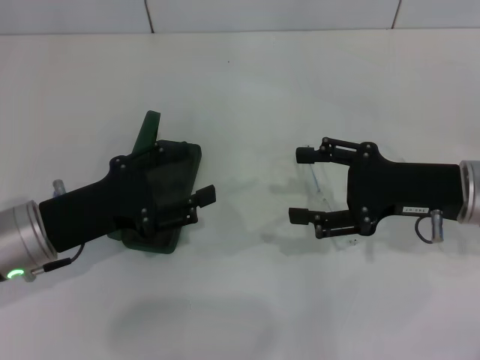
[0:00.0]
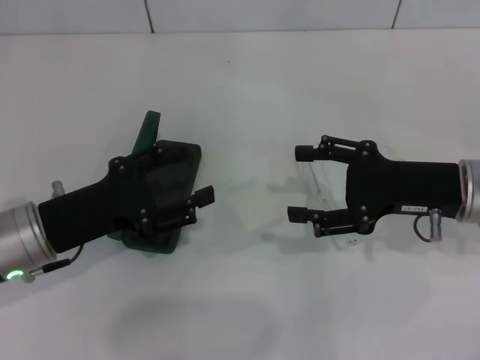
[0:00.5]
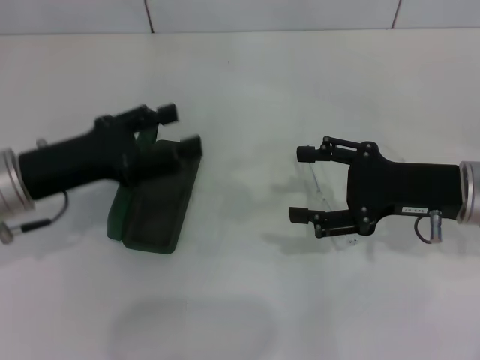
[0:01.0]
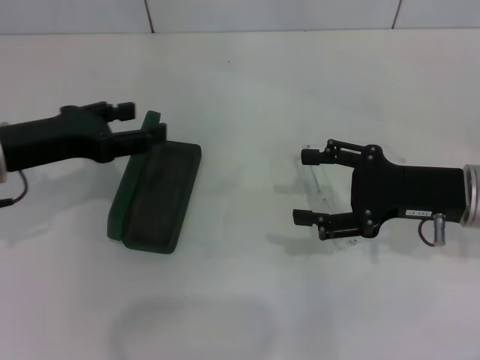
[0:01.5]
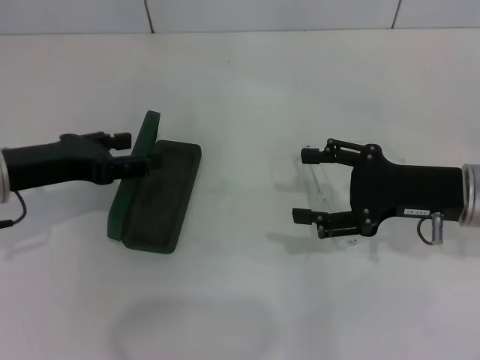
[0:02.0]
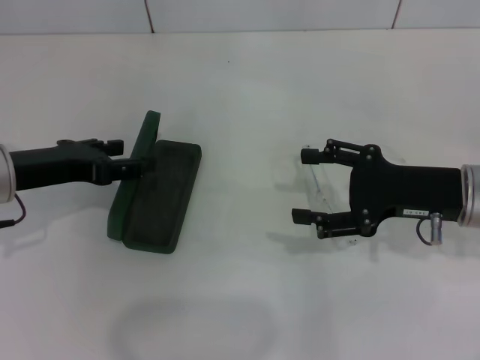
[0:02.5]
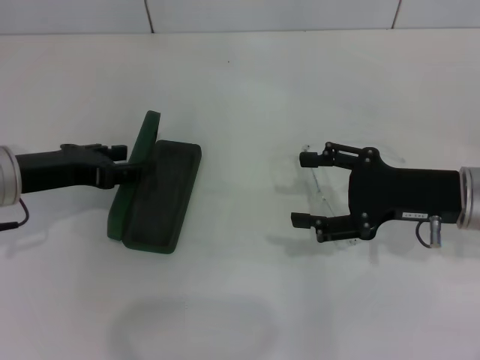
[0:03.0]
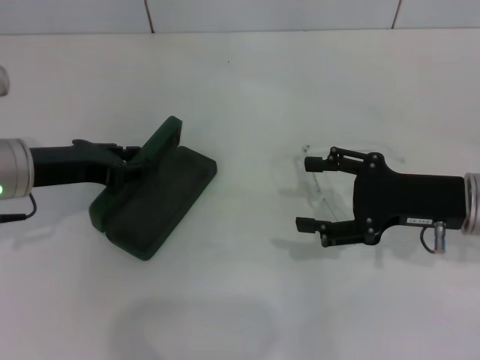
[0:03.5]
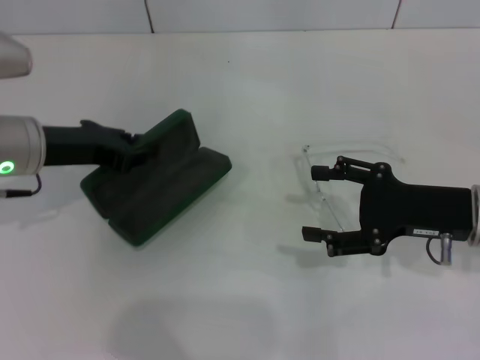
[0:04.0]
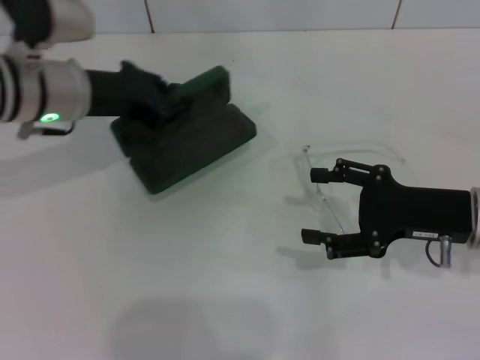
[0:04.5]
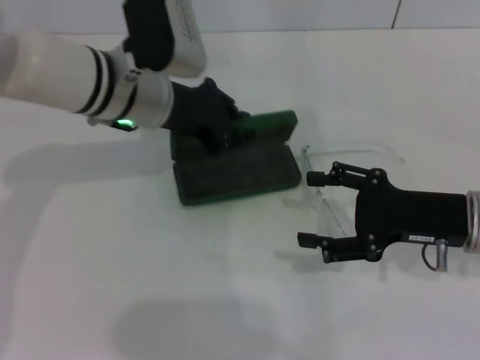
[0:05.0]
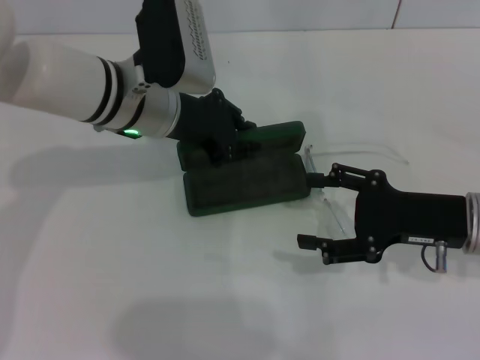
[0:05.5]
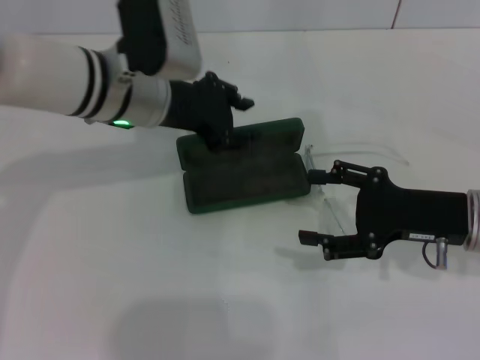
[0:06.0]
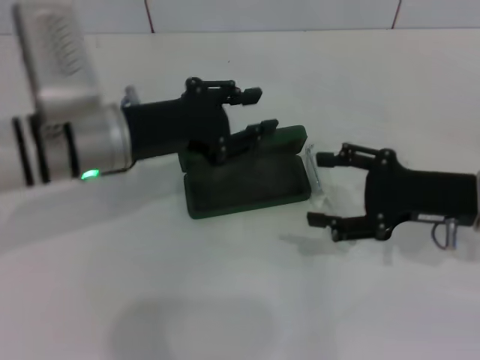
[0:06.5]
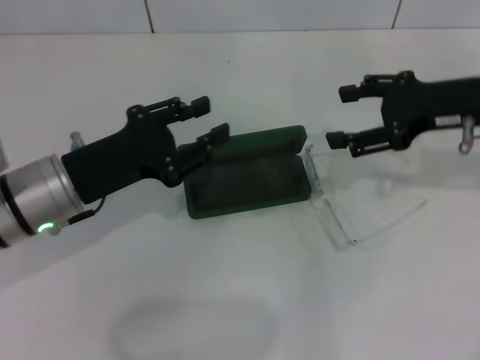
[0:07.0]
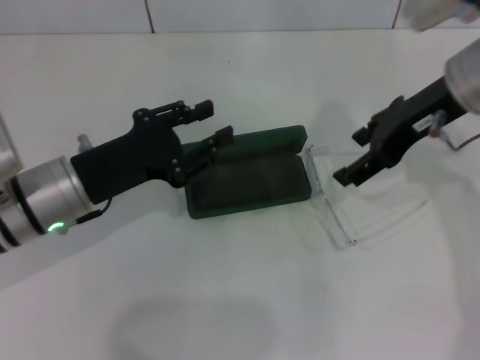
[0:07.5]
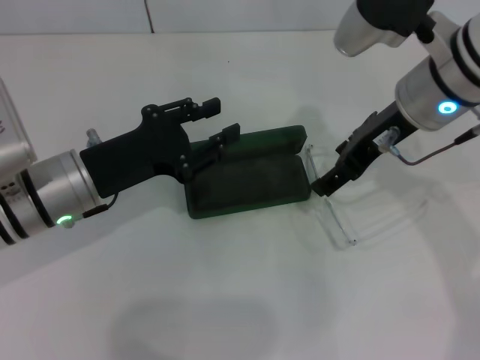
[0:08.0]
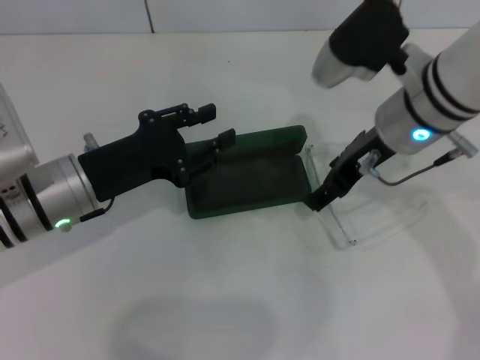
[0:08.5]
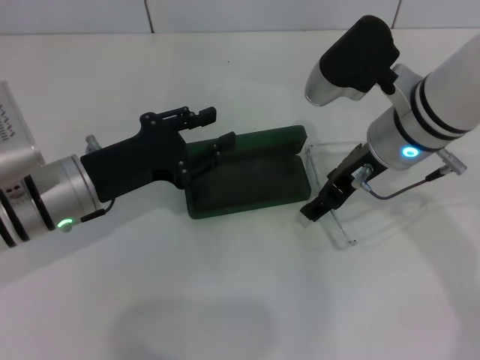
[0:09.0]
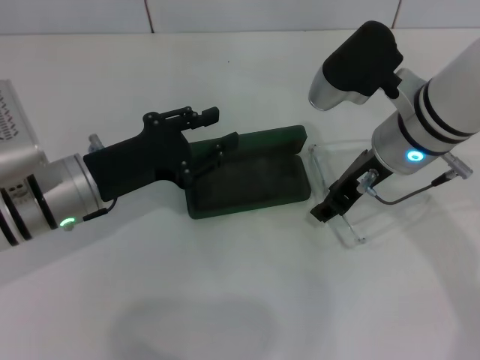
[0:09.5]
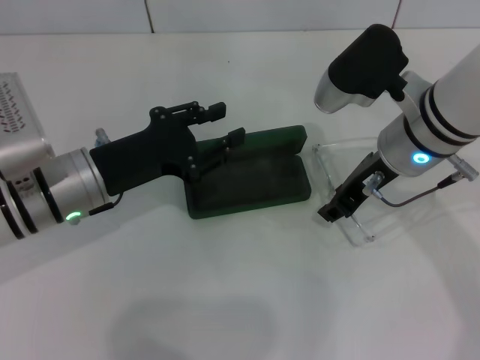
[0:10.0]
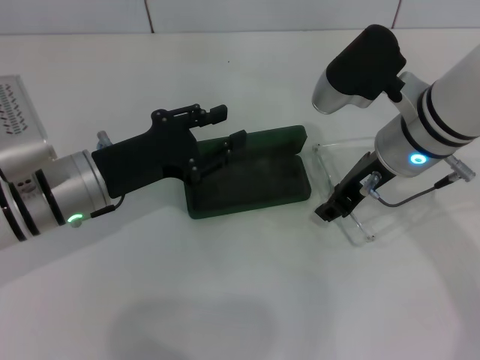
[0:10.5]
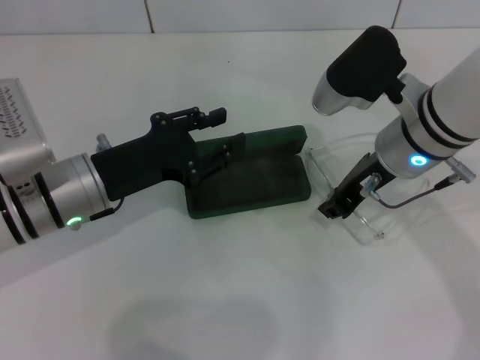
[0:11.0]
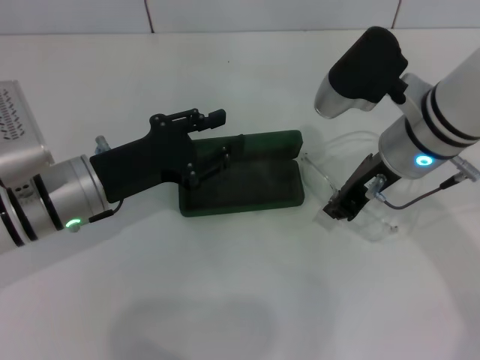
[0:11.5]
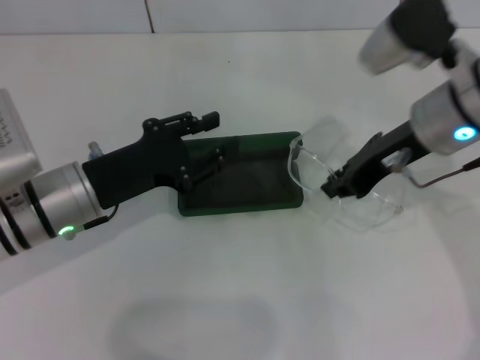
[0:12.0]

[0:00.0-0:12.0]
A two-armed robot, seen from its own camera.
Step, 0:00.0 to 0:03.5: Grab the glasses case with your left hand.
Step, 0:04.0 to 0:05.5: Place the glasses case in the center of the table with your left hand.
0:00.0 to 0:02.0: The left gripper heads upward, covering about 5 cm.
0:02.0 to 0:04.0: The left gripper closes its fingers.
0:04.0 to 0:06.0: The left gripper shifts some 10 cm to the right, and opens.
0:06.0 to 0:08.0: The left gripper heads backward, to the left and downward, covering about 15 cm, while the right gripper heads upward, to the left and forward, covering about 15 cm.
0:08.0 to 0:10.0: The right gripper moves roughly 5 cm, and closes up.
0:10.0 to 0:12.0: The right gripper closes.

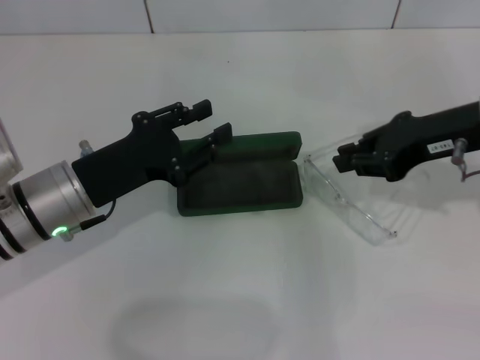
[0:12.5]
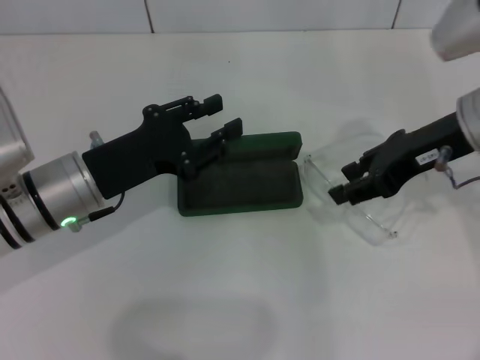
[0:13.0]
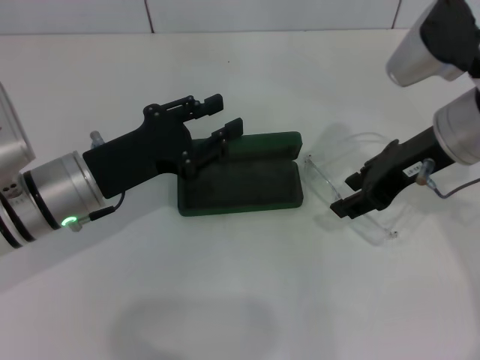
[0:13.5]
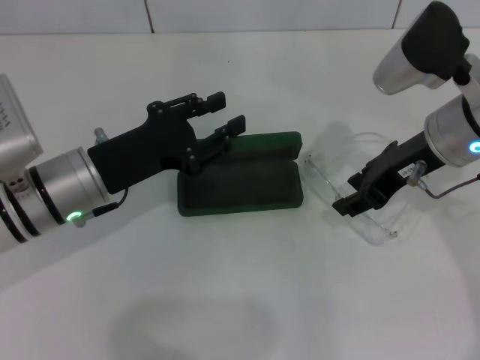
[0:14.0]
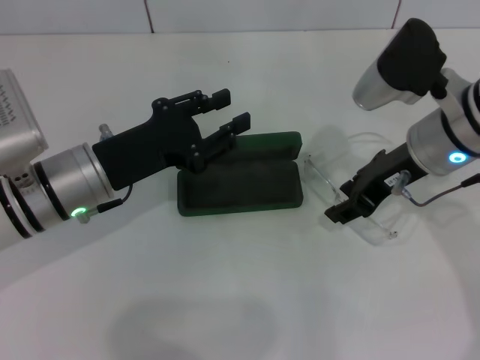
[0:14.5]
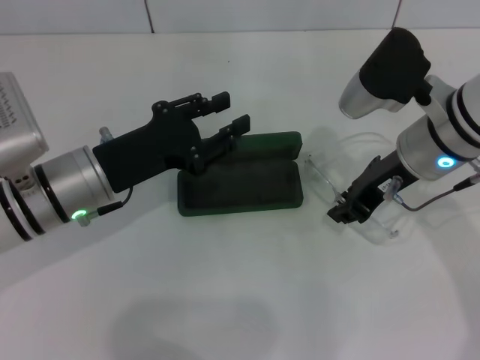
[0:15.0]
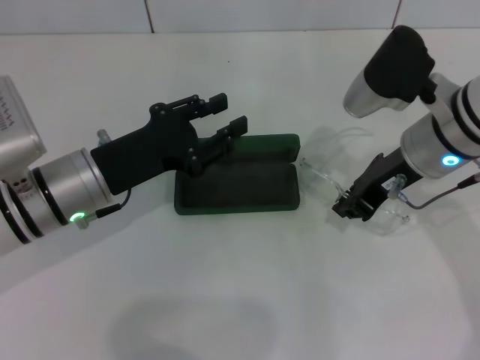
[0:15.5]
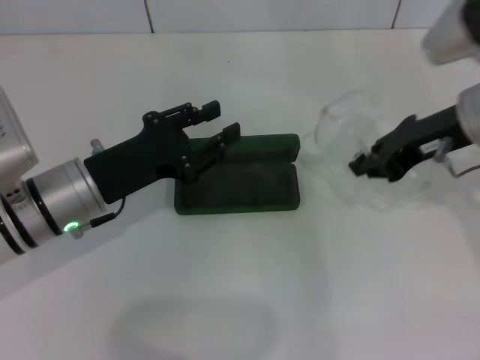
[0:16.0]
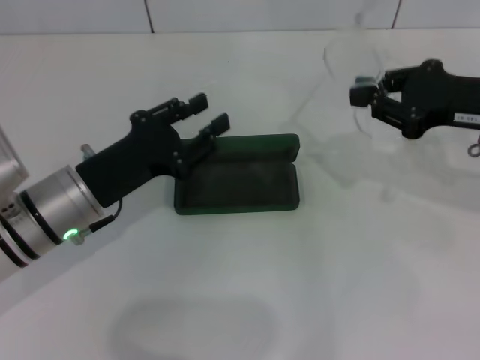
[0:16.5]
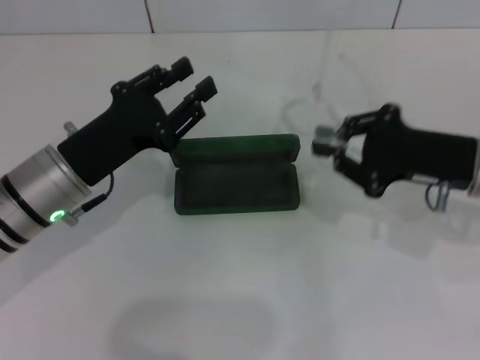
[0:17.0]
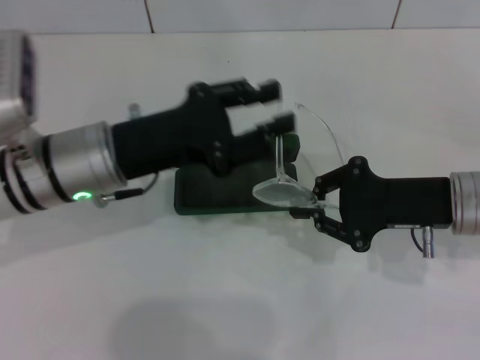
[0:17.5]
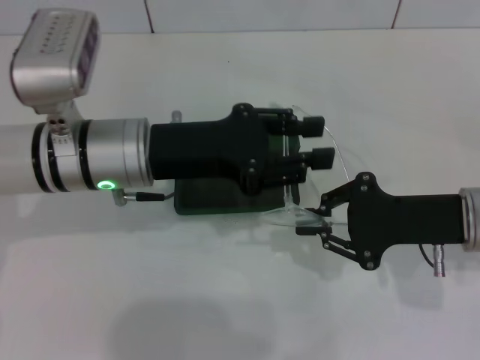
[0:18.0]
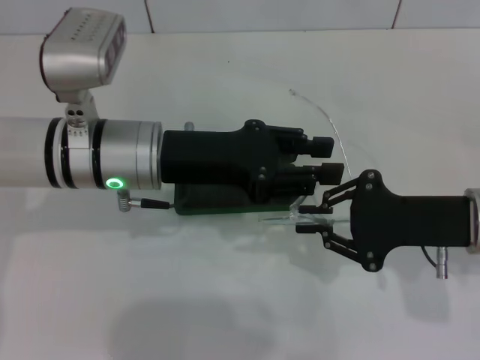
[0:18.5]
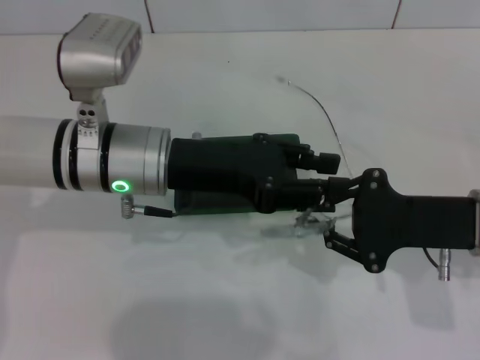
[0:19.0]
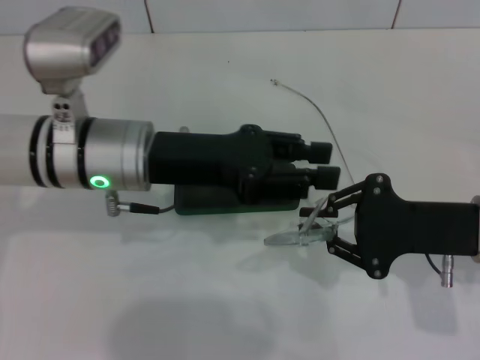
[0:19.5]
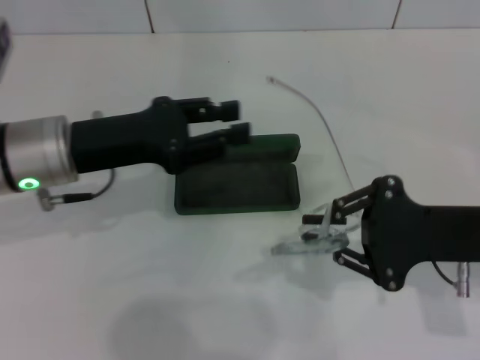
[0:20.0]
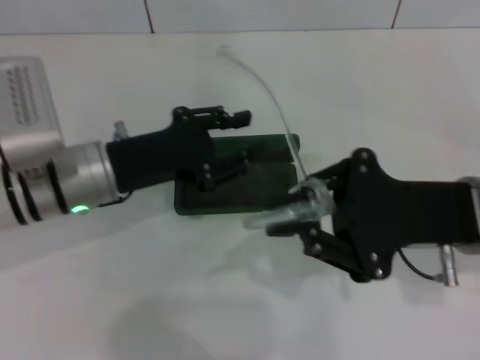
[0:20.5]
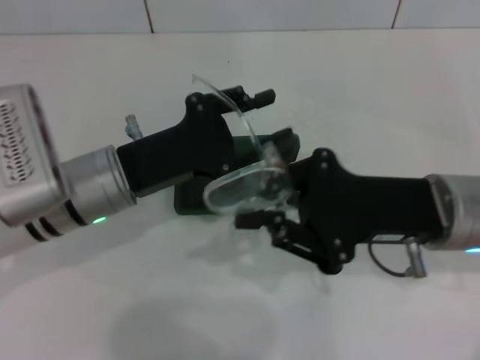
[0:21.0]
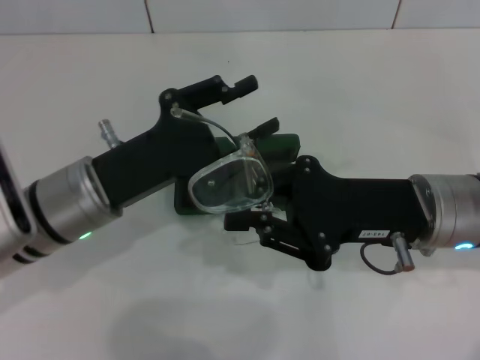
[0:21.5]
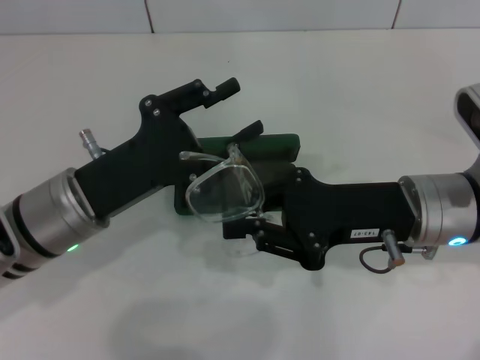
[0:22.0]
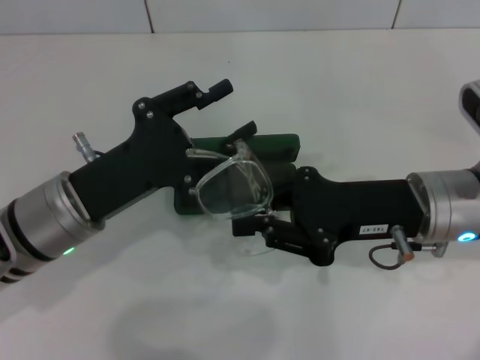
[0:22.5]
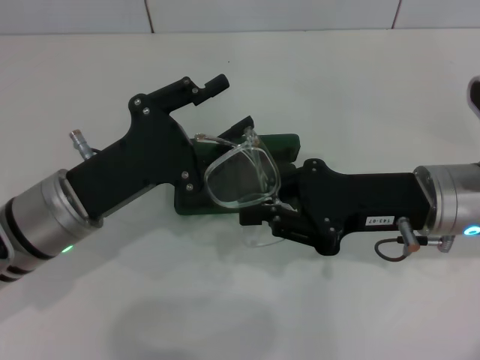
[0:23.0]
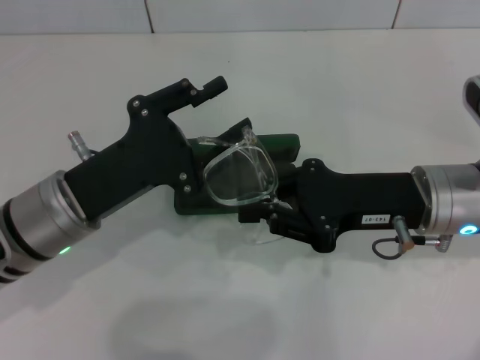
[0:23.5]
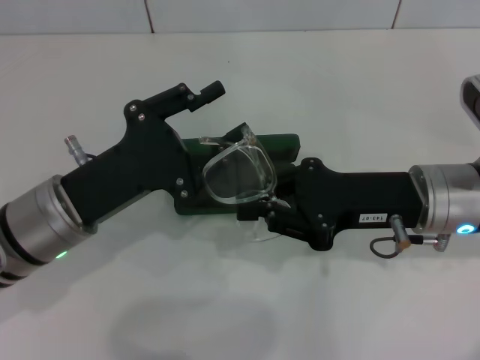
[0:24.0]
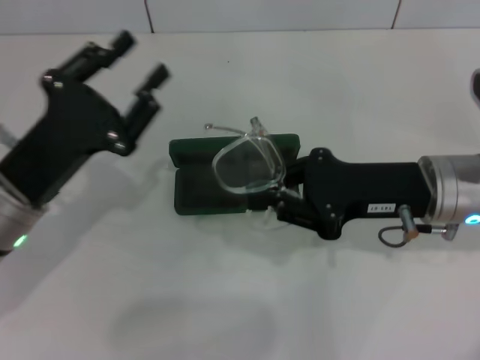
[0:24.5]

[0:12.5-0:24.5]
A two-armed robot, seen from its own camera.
Step, 0:12.5 to 0:15.0: Grab the eyeglass frame with your right hand.
Step, 0:15.5 to 0:23.5: Fold the frame with your left hand.
0:12.5 to 0:14.5: The right gripper travels to the left by roughly 5 cm, and opens its fingers.
0:14.5 to 0:16.5: The right gripper shifts roughly 10 cm to the right, and closes.
0:16.5 to 0:18.5: The left gripper moves upward and to the right, approximately 10 cm. The right gripper moves downward and backward, some 10 cm.
0:18.5 to 0:20.5: The left gripper moves approximately 5 cm.
0:20.5 to 0:22.5: The left gripper heads backward, covering roughly 5 cm.

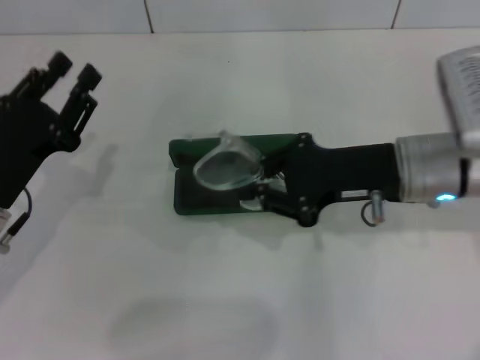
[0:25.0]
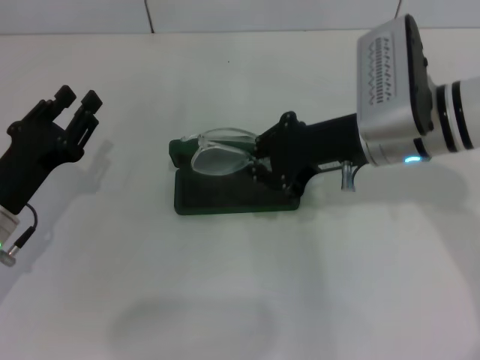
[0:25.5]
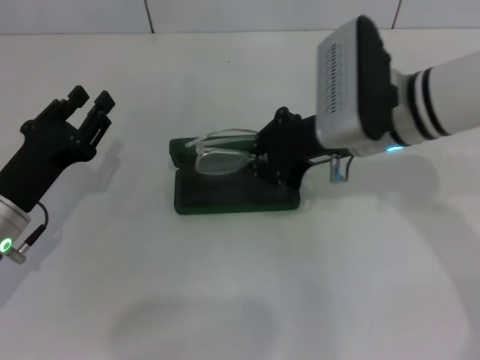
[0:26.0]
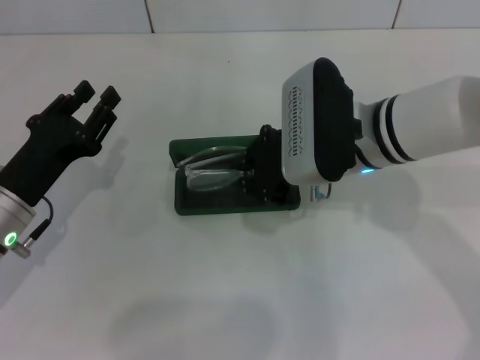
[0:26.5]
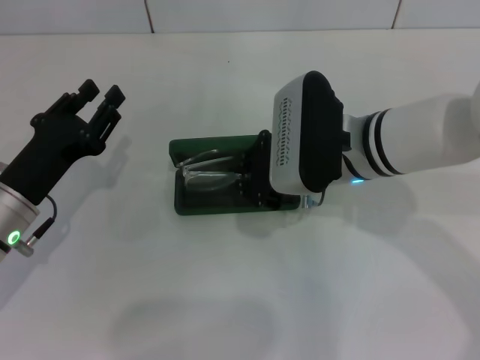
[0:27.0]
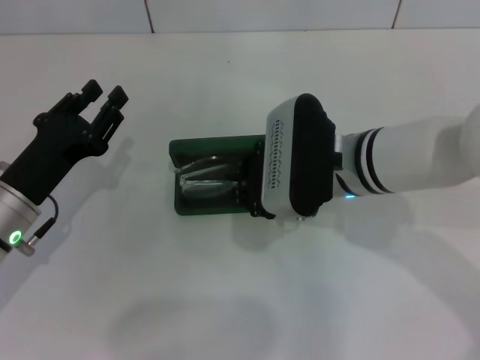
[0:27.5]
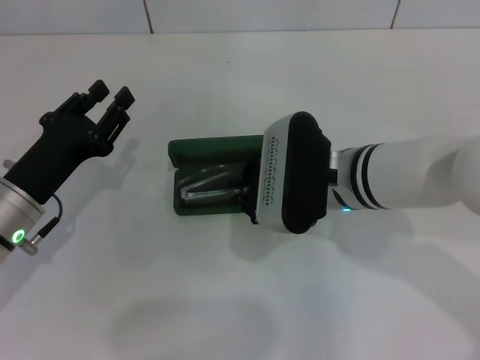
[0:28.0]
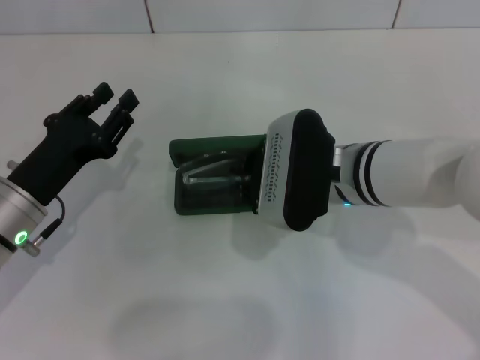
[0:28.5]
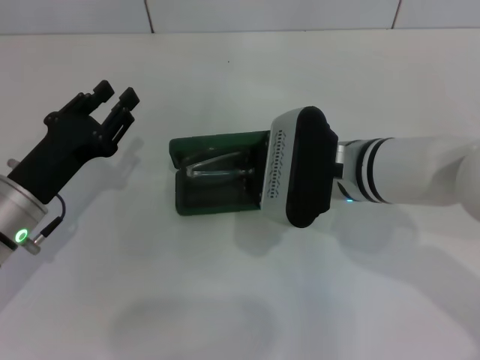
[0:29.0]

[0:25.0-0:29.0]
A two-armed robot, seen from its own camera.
0:25.0 to 0:27.0: The right gripper travels to the left by approximately 10 cm.
0:27.0 to 0:29.0: The grippers make only small movements.
